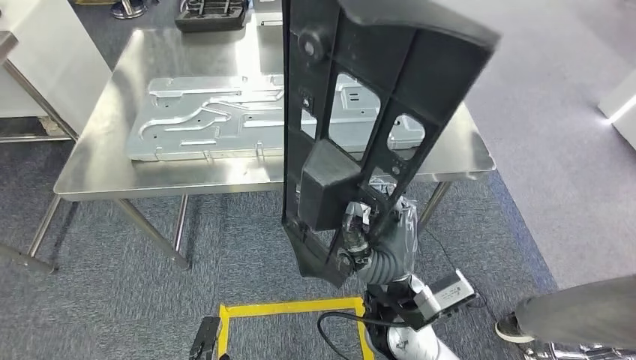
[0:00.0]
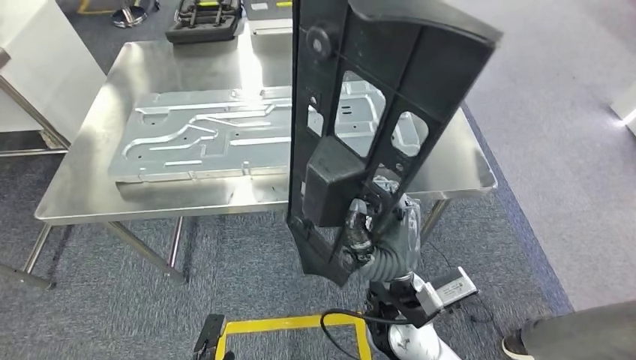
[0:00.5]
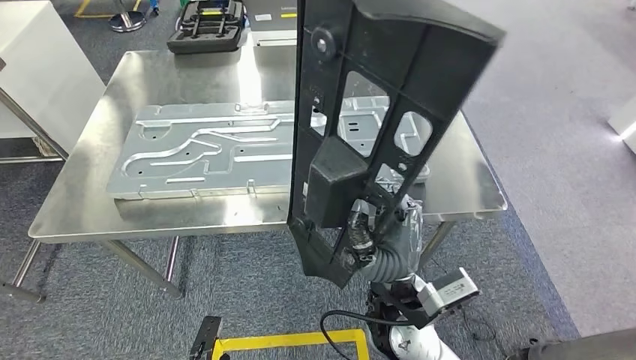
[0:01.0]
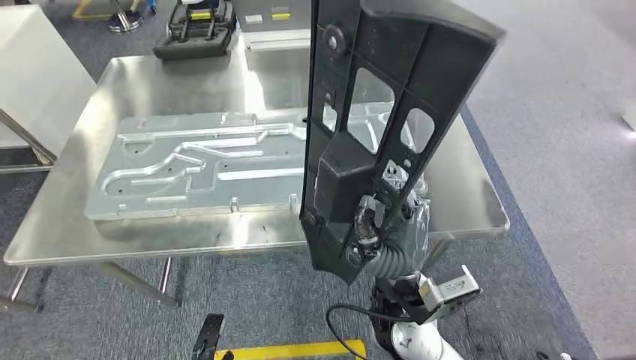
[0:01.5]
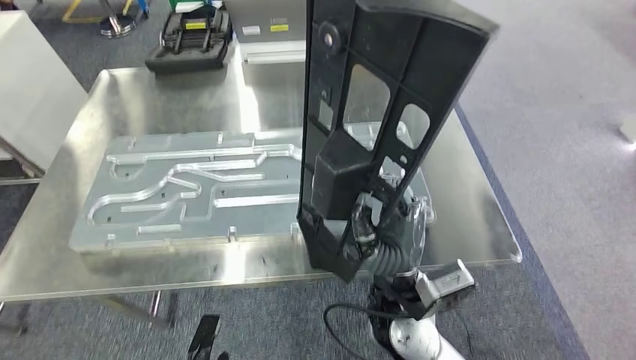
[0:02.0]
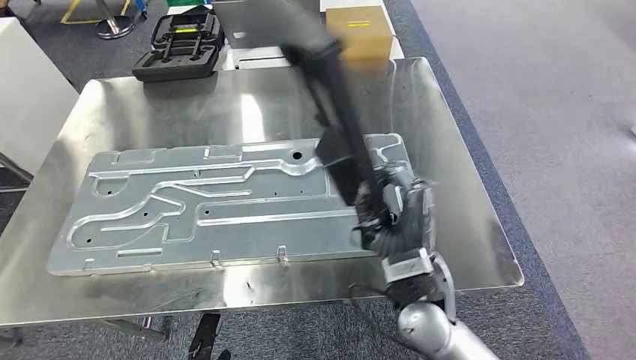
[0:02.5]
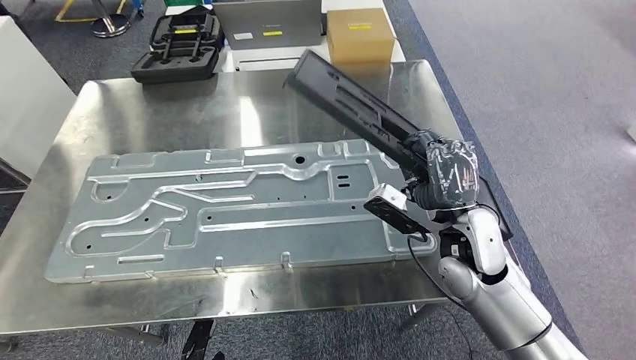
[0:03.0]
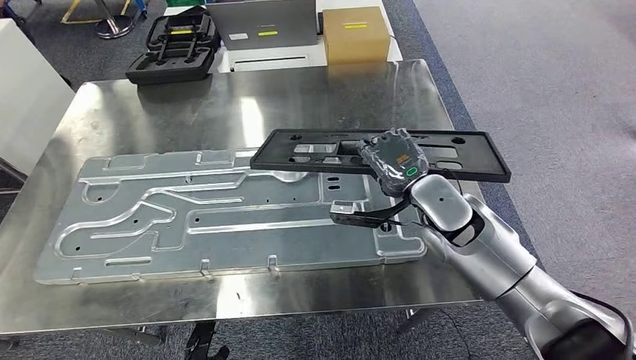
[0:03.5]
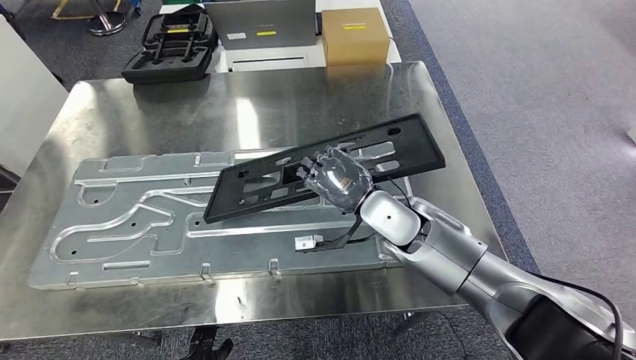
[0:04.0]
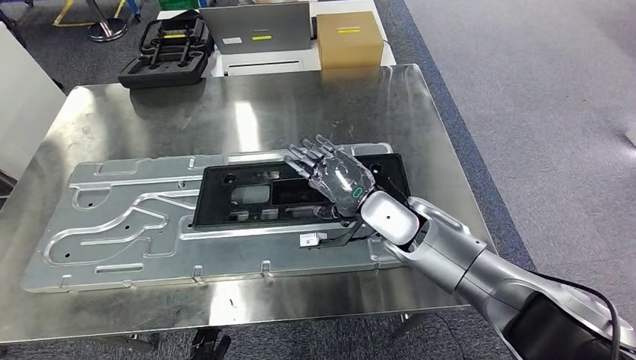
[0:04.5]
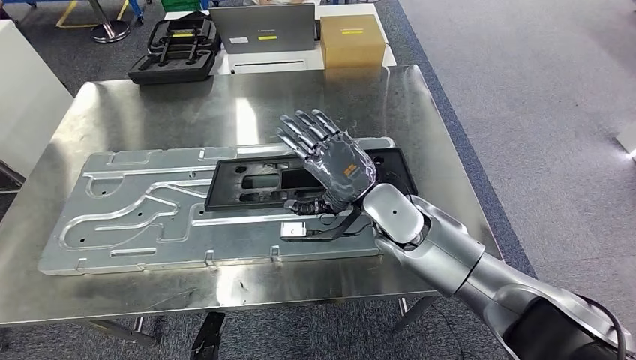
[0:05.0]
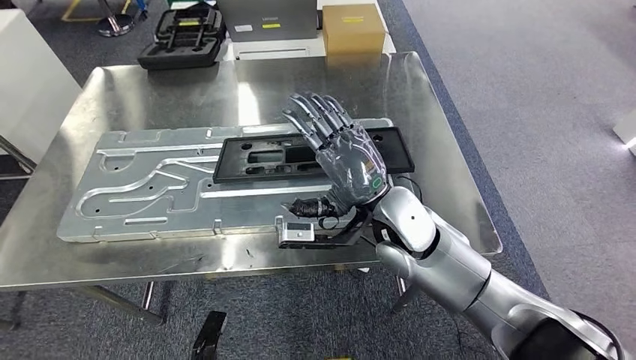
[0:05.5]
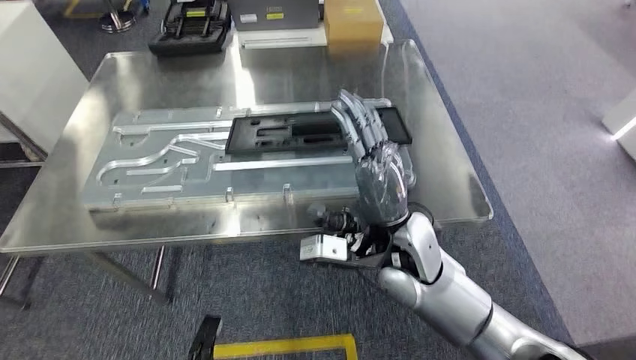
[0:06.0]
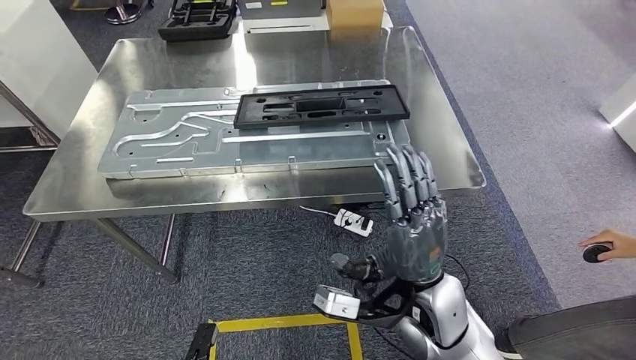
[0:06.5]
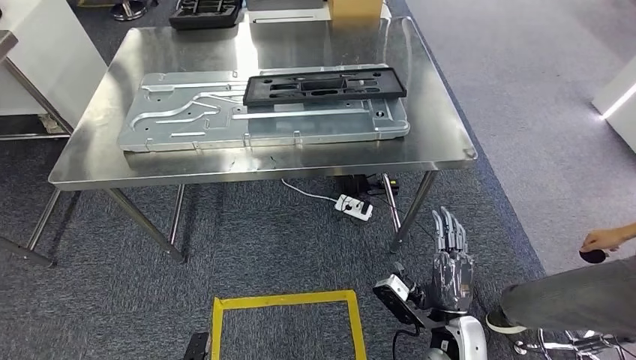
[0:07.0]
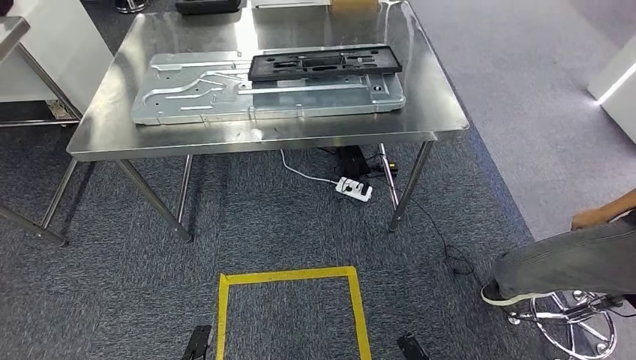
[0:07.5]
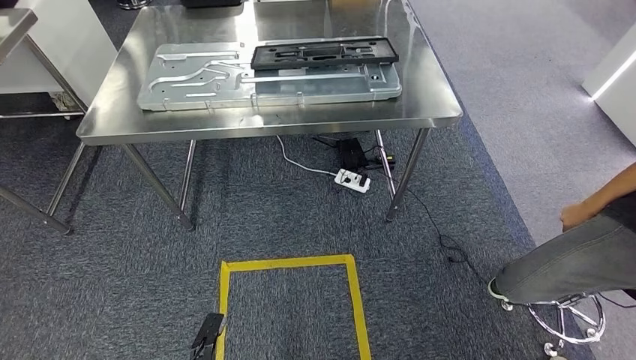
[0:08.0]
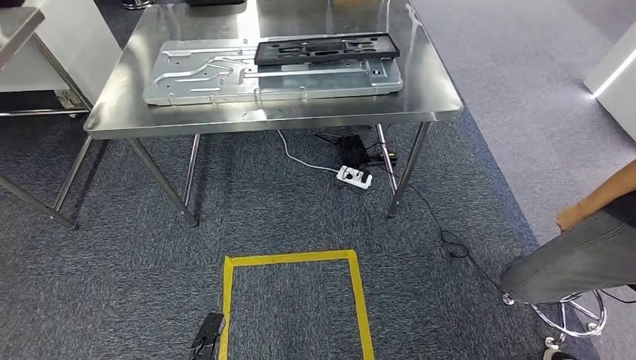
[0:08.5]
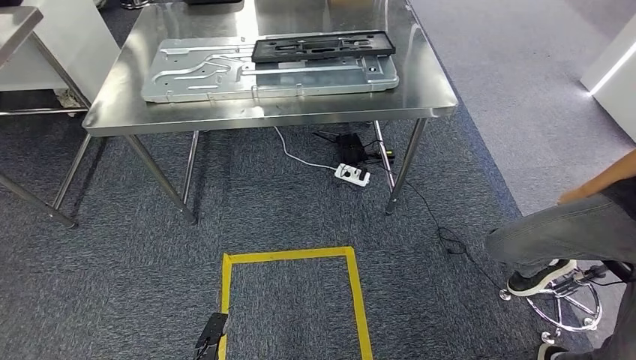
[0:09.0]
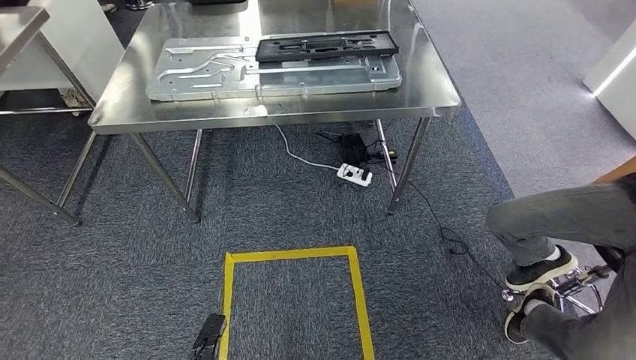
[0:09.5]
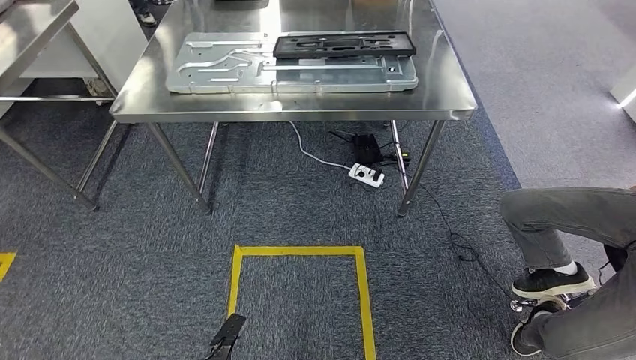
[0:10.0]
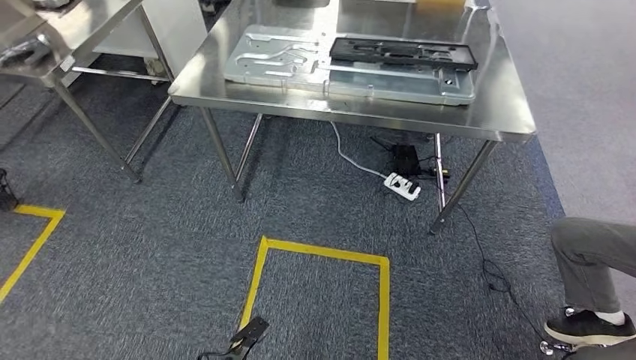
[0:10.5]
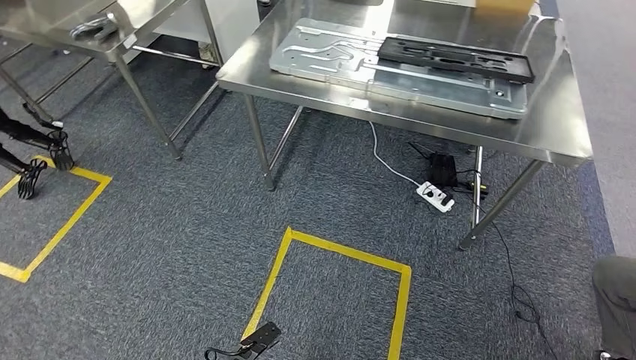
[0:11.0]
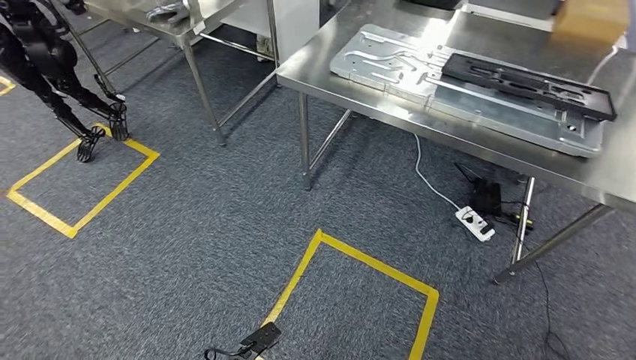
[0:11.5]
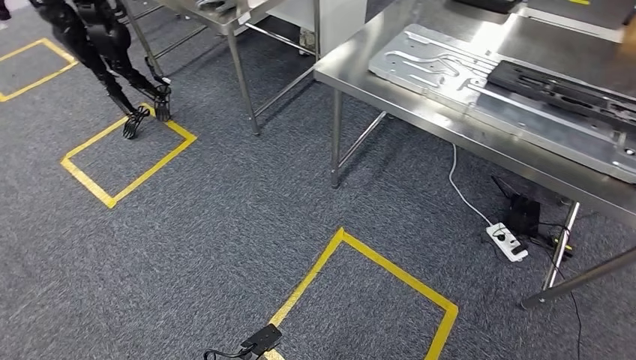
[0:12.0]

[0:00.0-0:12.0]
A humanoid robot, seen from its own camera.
Step, 0:00.0 to 0:07.0: Insert the large material into the corresponding slot on the workbench.

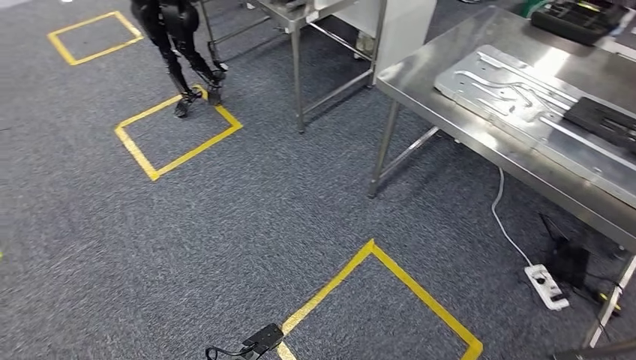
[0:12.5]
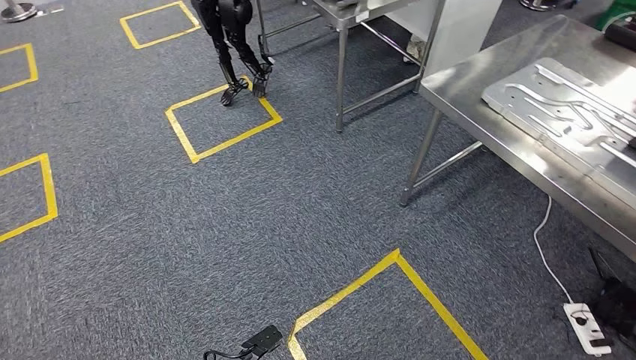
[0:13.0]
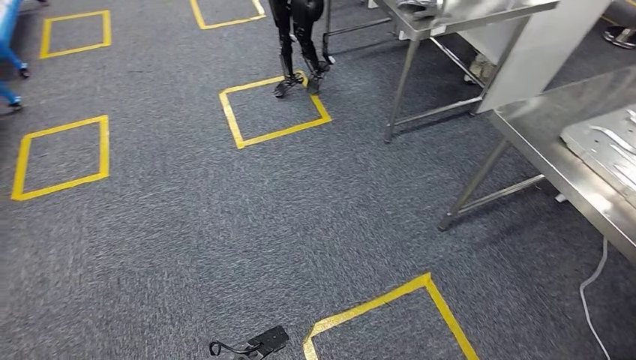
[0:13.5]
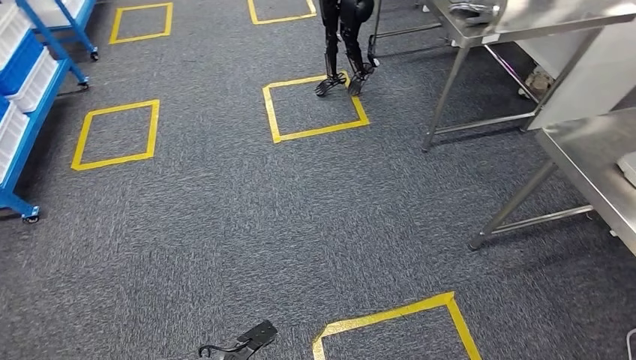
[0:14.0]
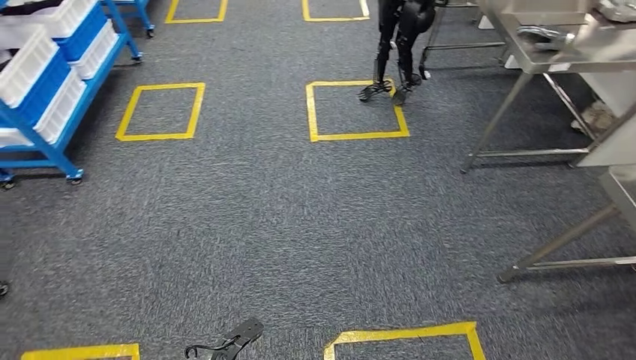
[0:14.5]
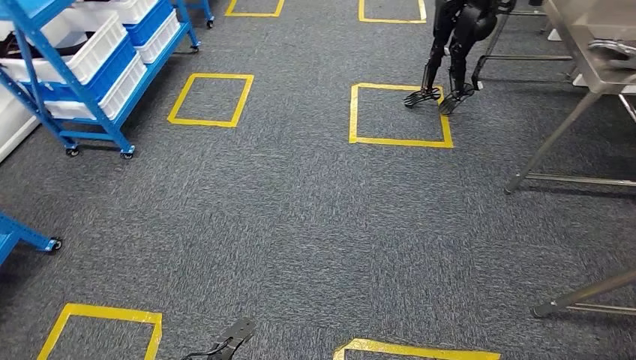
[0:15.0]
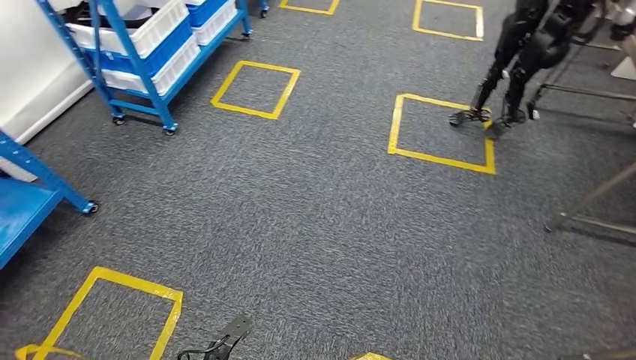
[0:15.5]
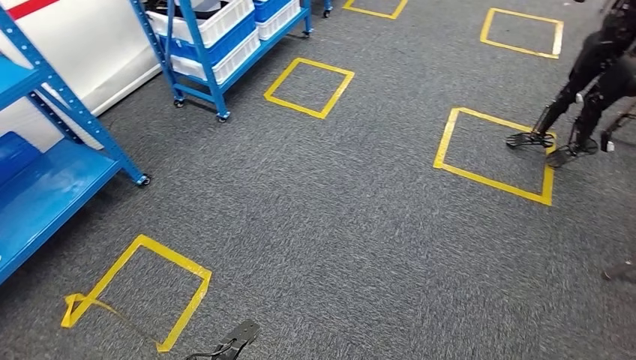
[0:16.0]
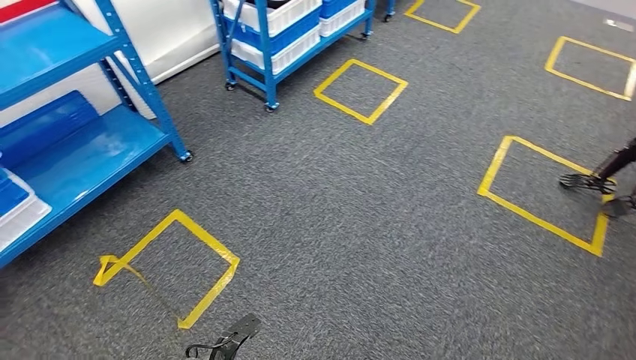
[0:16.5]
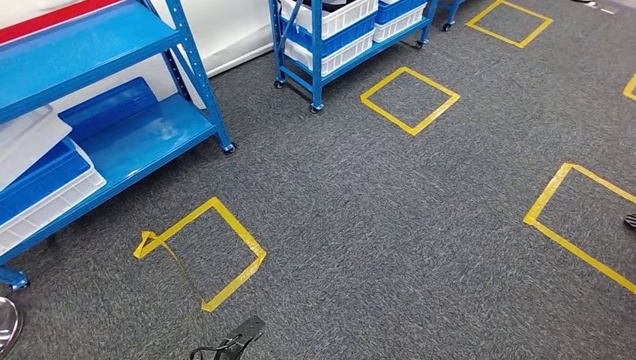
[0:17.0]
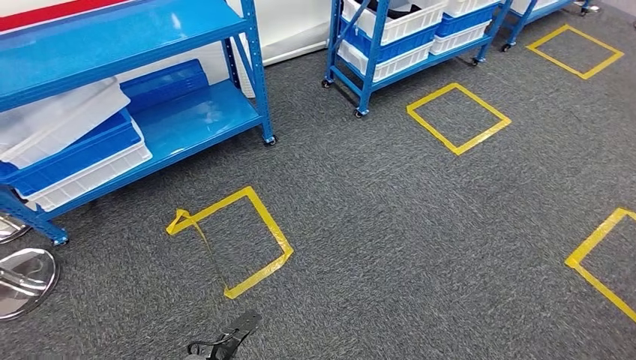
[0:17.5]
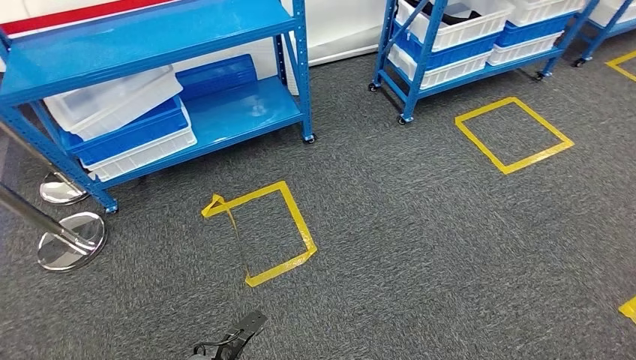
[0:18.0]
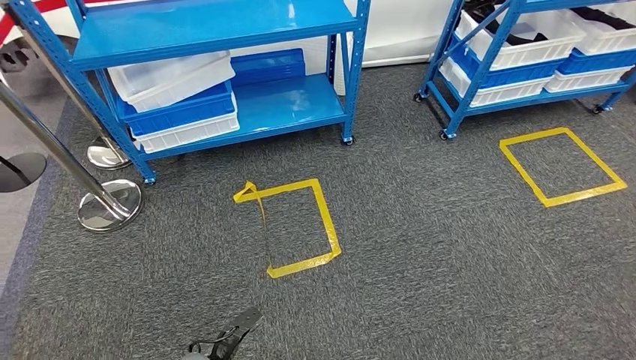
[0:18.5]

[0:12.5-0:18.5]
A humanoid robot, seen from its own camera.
Step, 0:12.5 to 0:18.5: Move to the initial position of the shelf.
